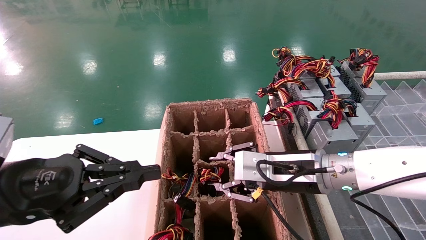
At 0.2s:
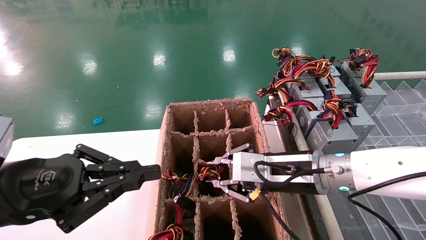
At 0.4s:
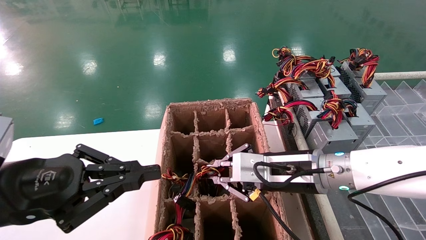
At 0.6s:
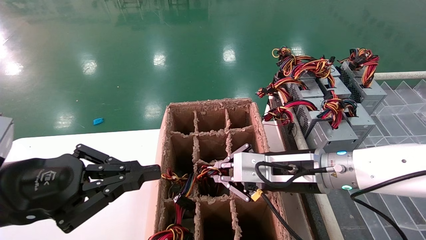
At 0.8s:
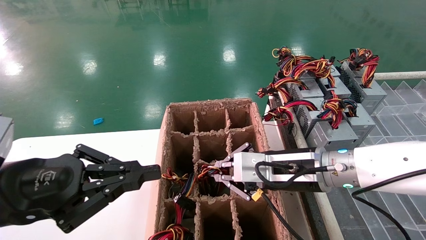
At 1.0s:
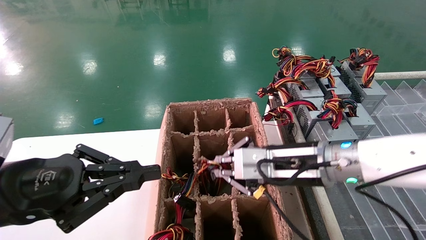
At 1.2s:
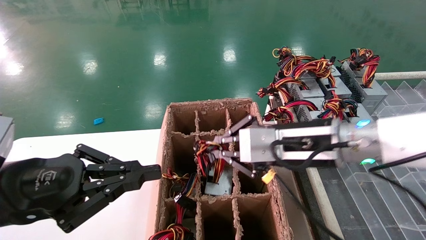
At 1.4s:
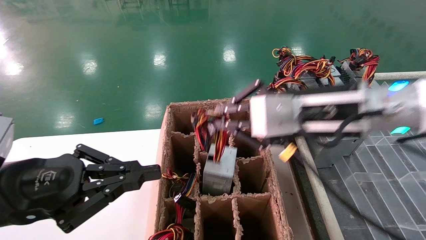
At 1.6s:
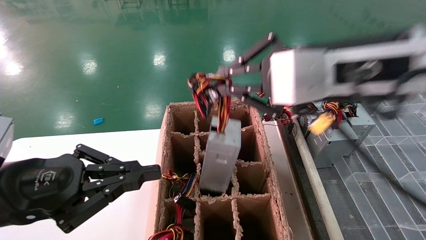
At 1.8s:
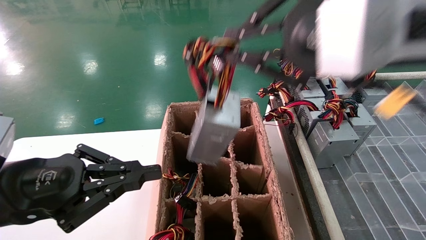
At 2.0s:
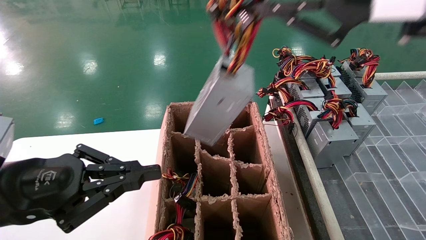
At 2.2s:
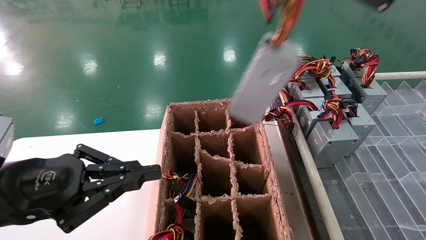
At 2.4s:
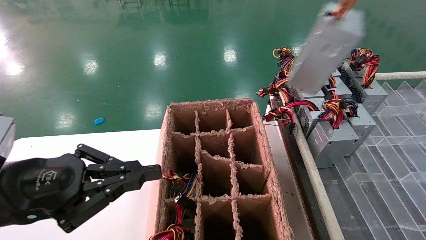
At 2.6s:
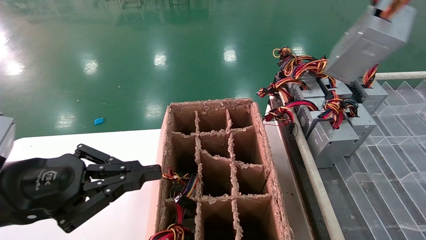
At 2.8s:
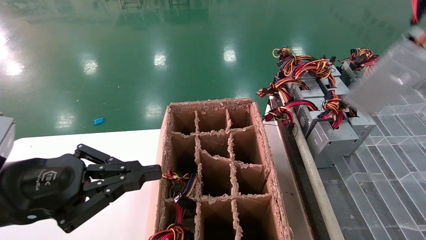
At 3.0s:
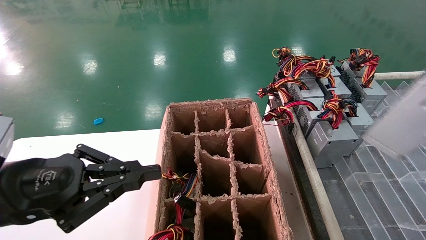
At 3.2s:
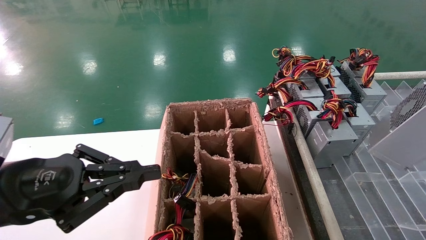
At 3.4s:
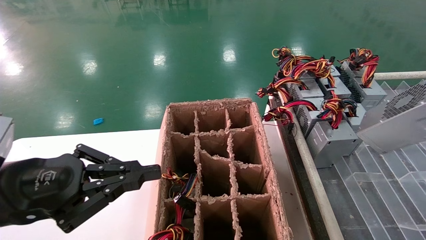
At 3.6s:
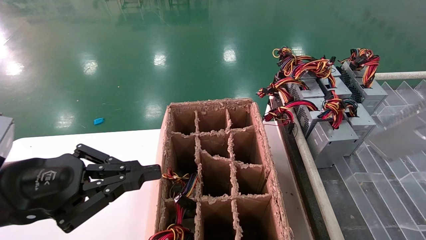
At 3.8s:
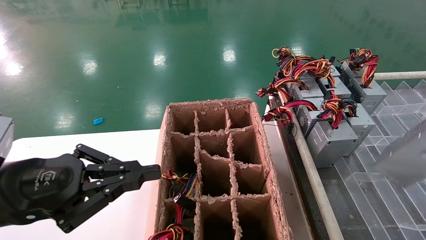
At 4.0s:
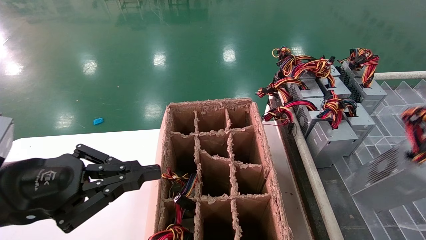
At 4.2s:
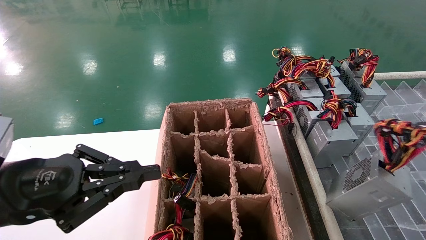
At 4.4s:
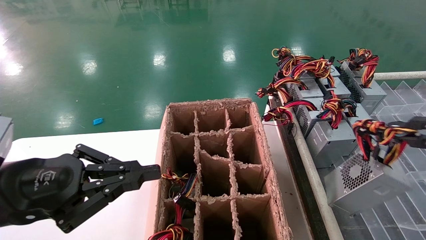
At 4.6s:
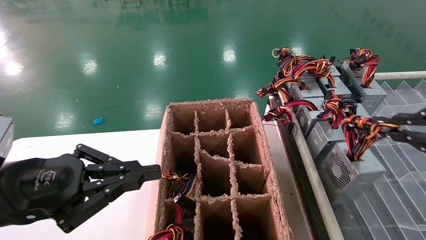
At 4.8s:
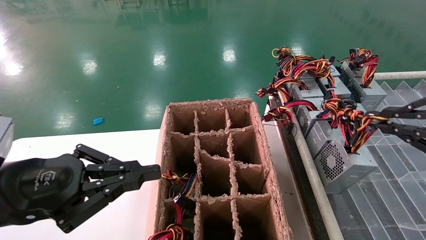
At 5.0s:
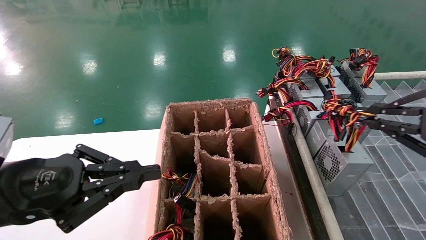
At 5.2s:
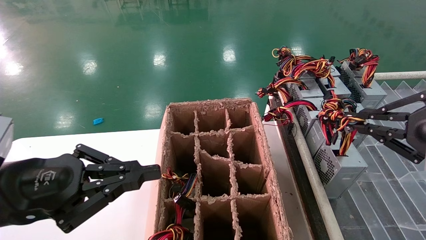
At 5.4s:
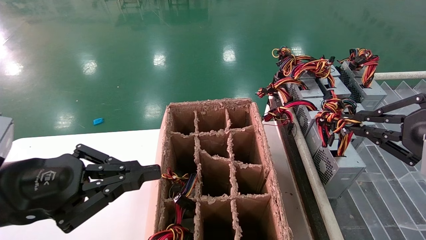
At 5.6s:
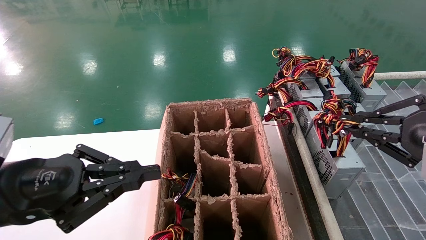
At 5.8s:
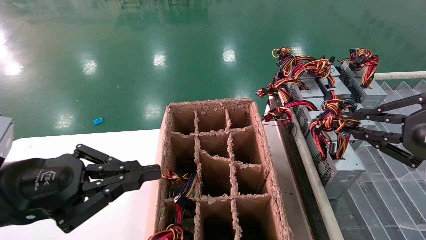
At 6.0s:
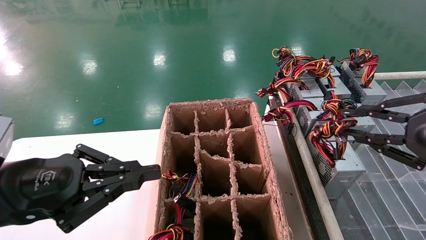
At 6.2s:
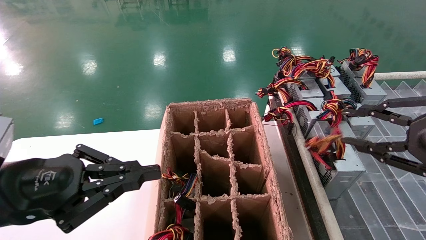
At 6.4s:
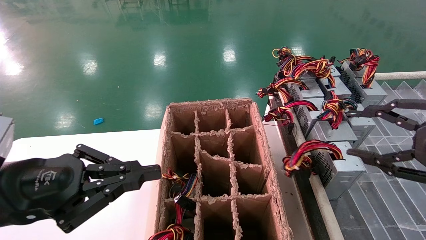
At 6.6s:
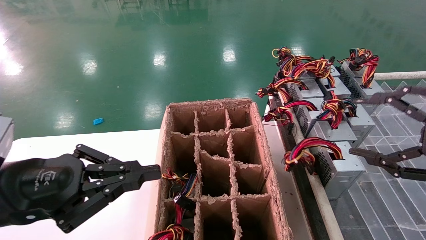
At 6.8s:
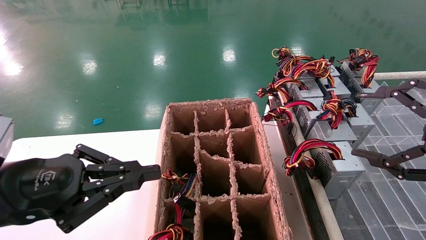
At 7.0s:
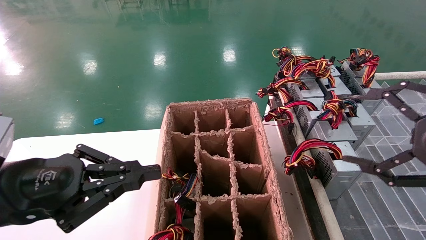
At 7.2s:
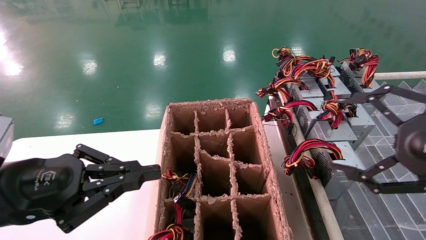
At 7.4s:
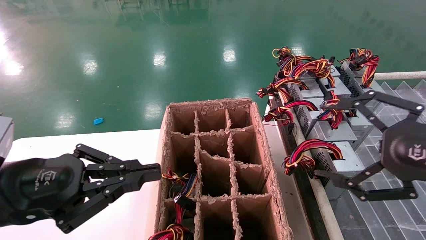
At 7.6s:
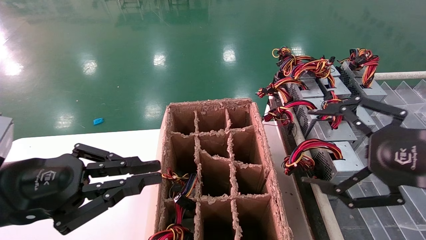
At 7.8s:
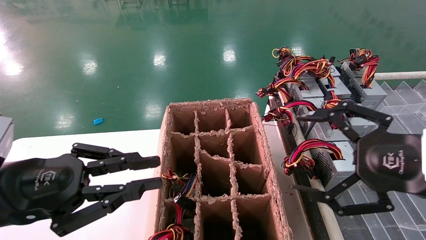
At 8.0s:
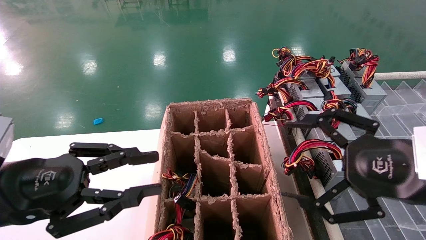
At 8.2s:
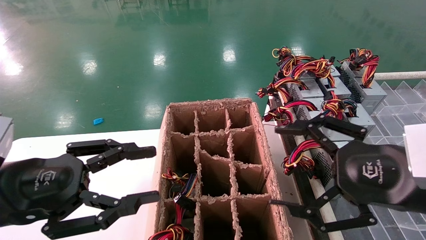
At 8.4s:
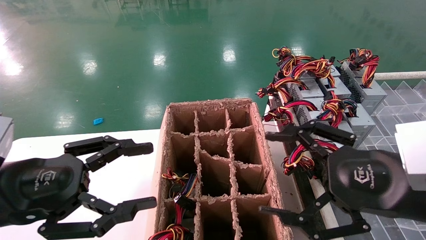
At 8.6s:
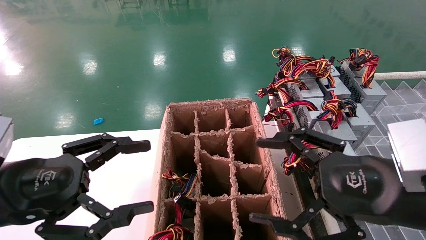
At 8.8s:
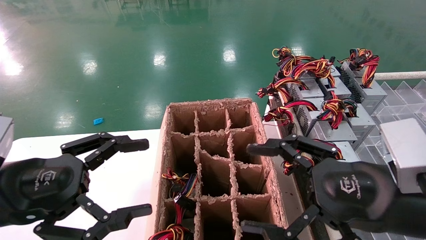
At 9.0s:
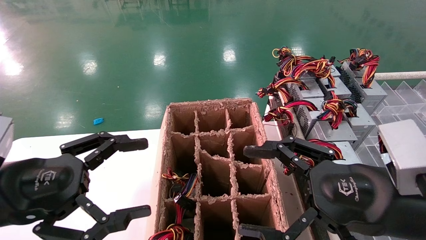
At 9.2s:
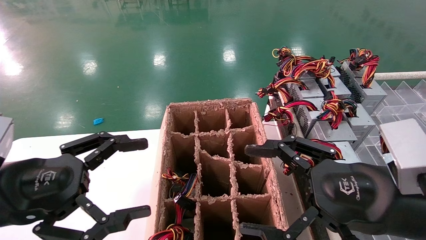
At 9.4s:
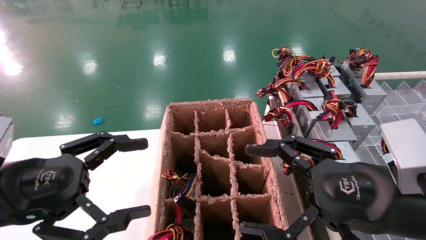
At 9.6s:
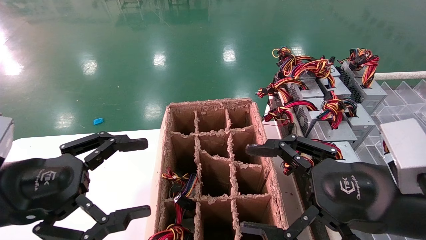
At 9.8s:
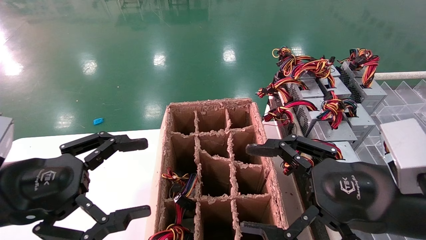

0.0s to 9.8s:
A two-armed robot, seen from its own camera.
Step, 0.8s to 6.4s: Place the main unit power supply in the designated area.
0.0s to 1.4s: The right gripper goes about 15 cm upward and backward, and closes.
1.4s to 2.8s: The right gripper is displaced to the right, backward and upward by about 30 cm.
2.8s to 4.2s: The right gripper shifts some 10 cm downward.
4.2s to 5.6s: The right gripper moves forward, approximately 10 cm.
5.6s to 7.0s: The right gripper opens up.
7.0s to 8.4s: The left gripper opens up. The right gripper goes some 10 cm to the left and downward.
8.4s to 9.8s: The left gripper opens.

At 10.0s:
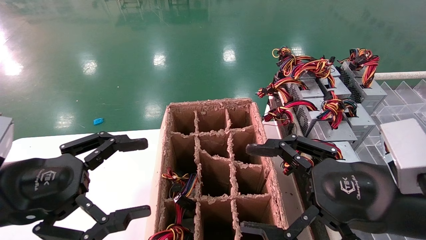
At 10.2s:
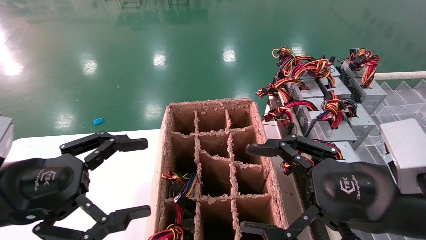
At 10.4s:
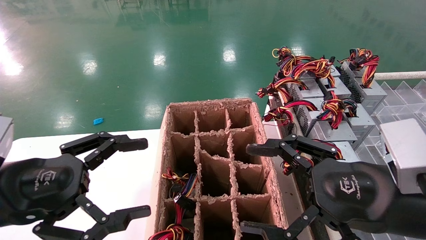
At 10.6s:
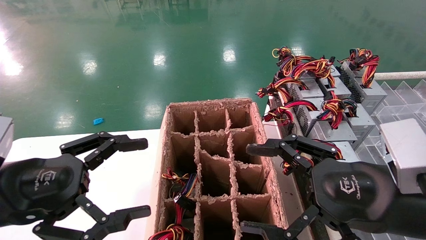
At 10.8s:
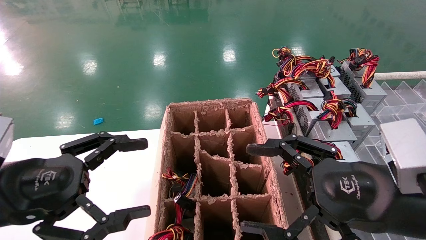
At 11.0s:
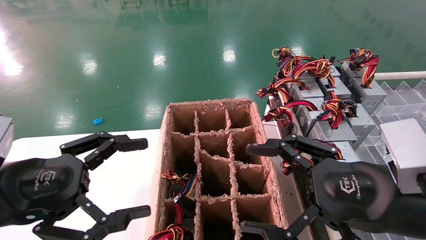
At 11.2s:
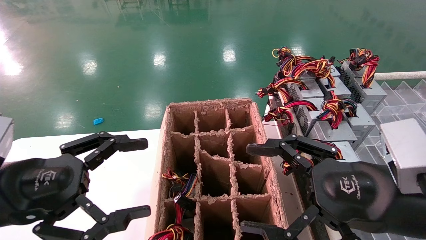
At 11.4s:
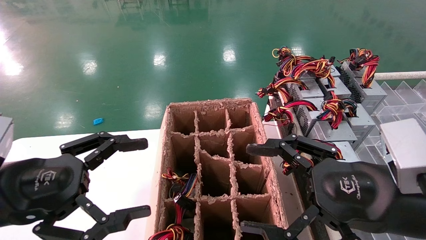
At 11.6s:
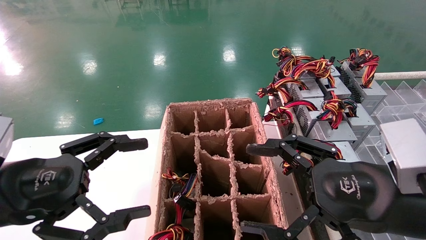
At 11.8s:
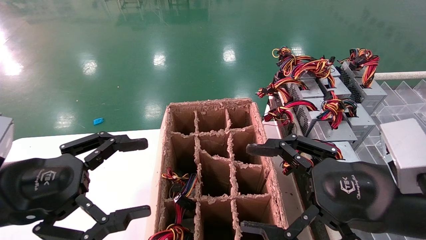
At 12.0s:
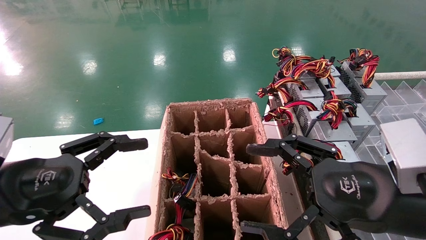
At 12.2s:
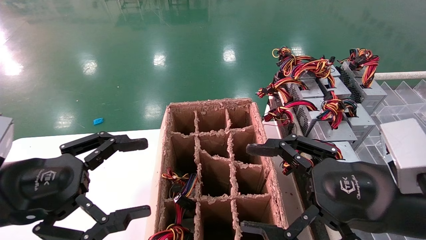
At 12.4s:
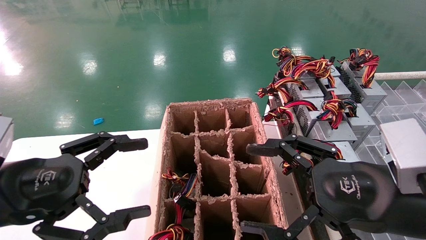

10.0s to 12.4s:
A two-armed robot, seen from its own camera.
10.0s to 12.4s: Neither gripper changes place.
